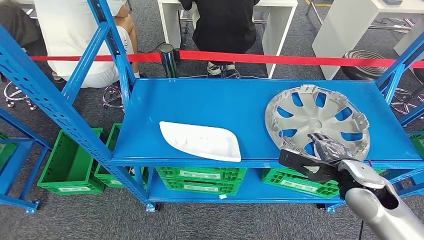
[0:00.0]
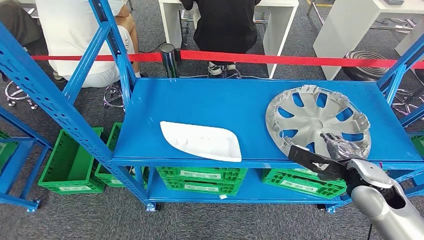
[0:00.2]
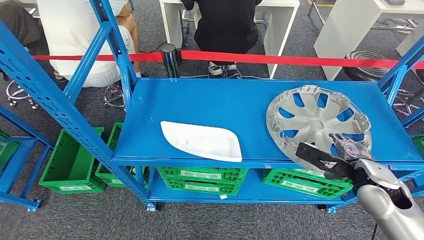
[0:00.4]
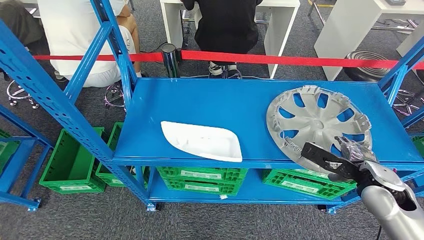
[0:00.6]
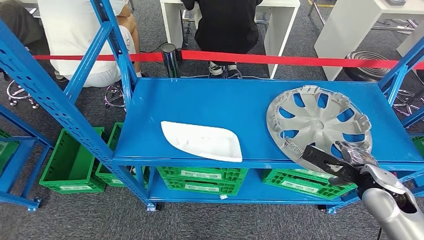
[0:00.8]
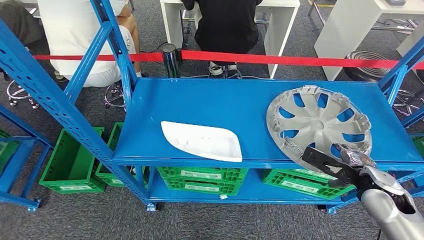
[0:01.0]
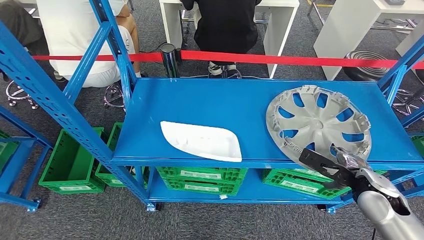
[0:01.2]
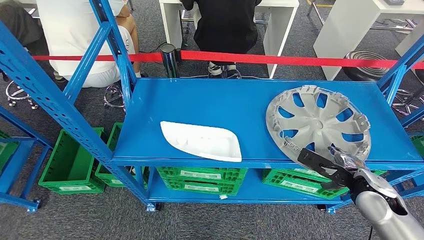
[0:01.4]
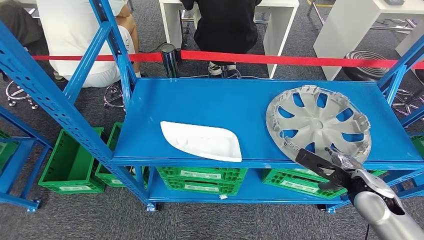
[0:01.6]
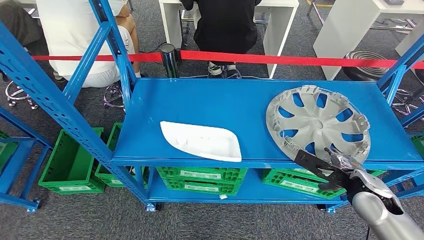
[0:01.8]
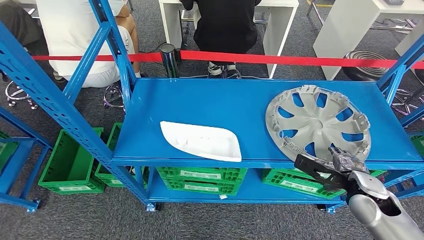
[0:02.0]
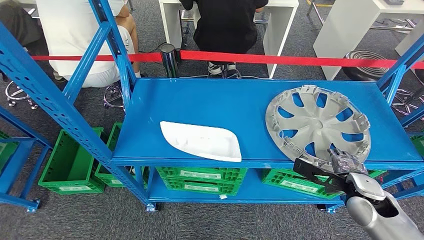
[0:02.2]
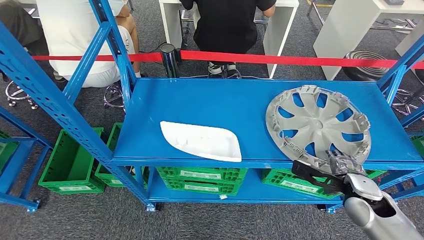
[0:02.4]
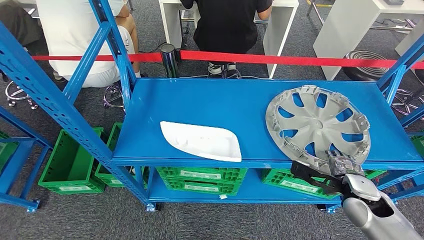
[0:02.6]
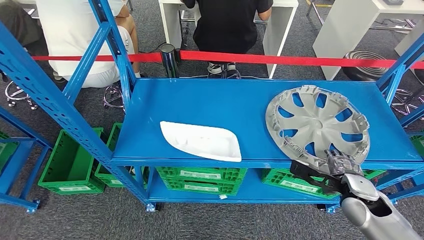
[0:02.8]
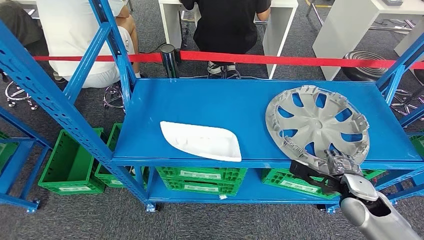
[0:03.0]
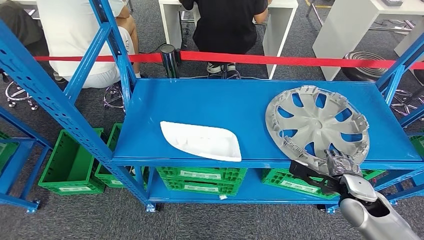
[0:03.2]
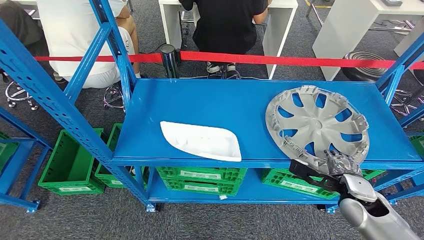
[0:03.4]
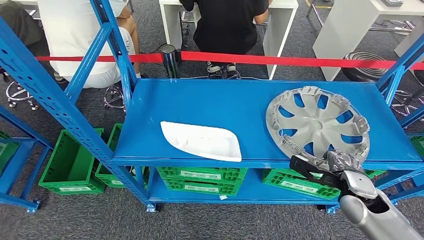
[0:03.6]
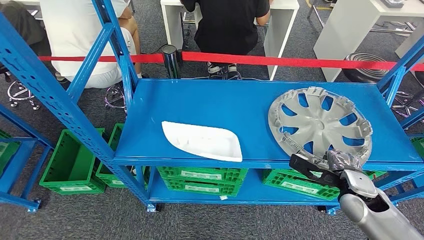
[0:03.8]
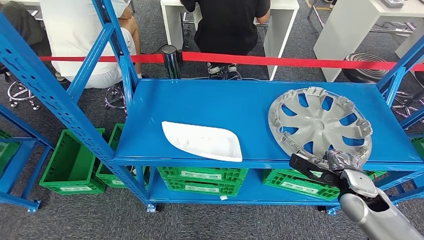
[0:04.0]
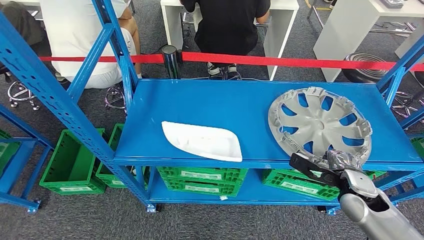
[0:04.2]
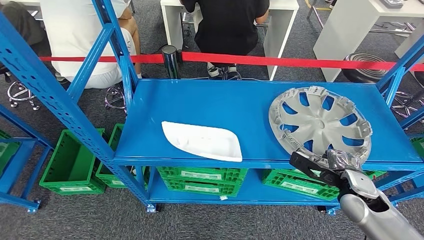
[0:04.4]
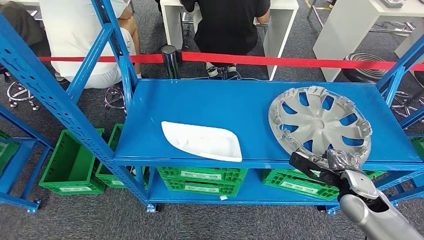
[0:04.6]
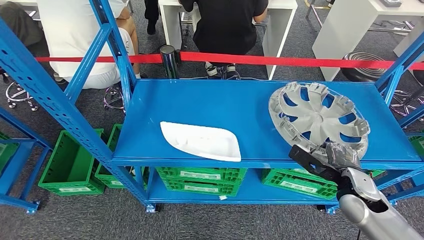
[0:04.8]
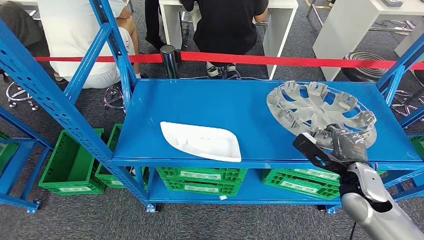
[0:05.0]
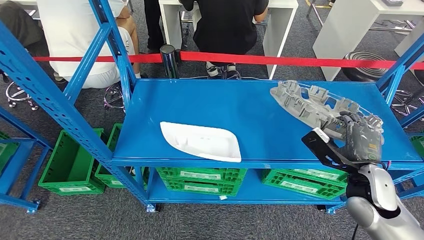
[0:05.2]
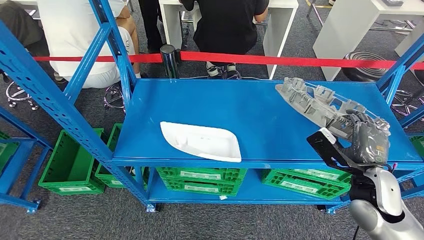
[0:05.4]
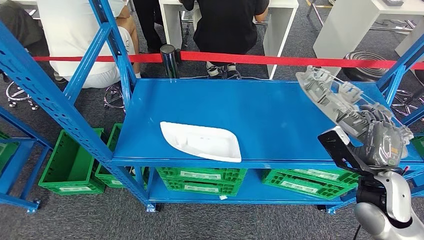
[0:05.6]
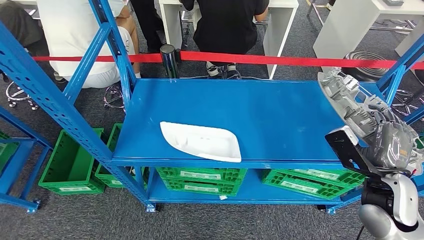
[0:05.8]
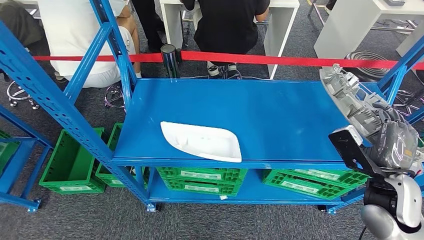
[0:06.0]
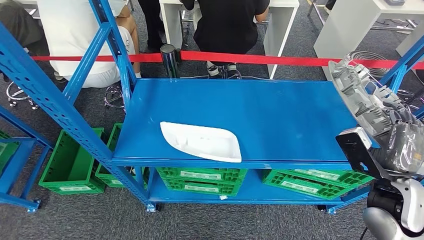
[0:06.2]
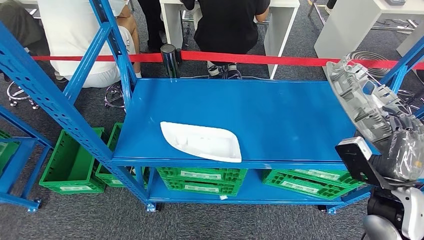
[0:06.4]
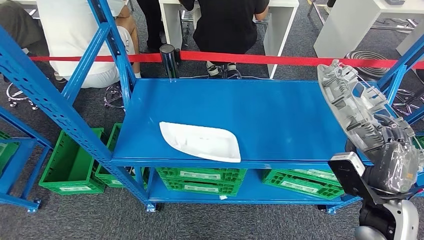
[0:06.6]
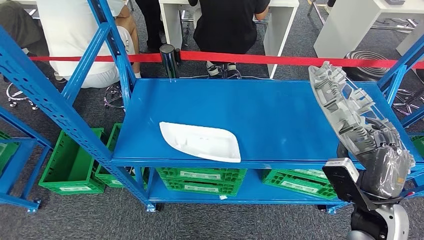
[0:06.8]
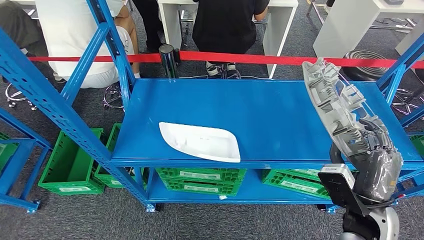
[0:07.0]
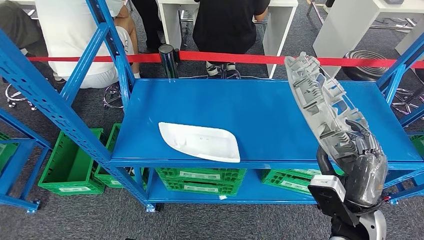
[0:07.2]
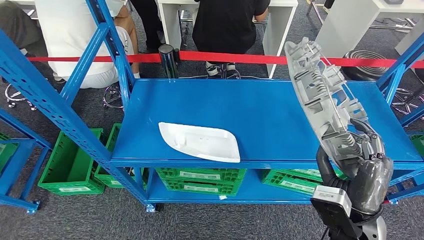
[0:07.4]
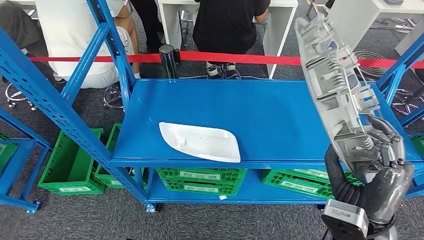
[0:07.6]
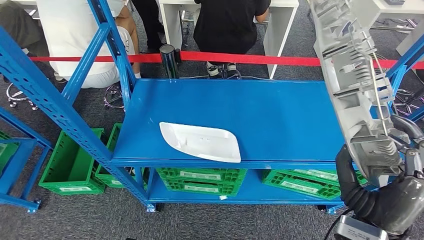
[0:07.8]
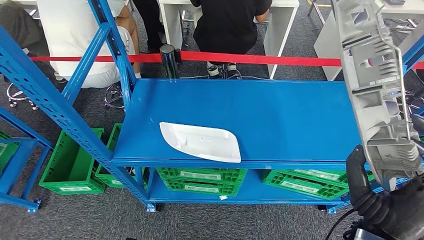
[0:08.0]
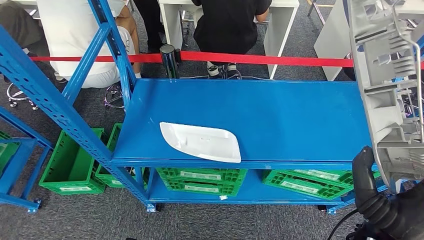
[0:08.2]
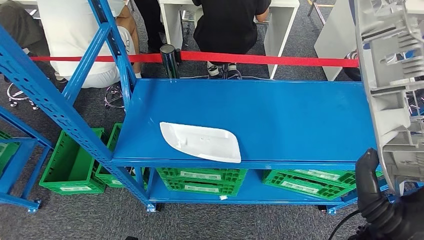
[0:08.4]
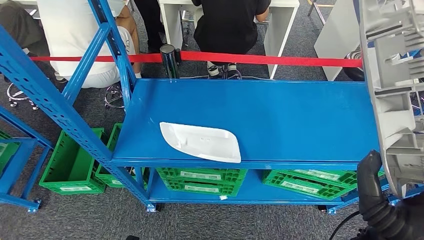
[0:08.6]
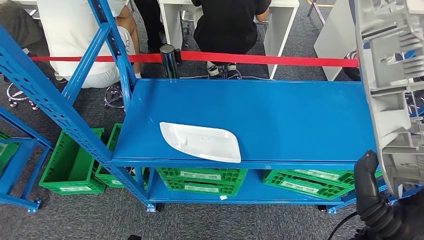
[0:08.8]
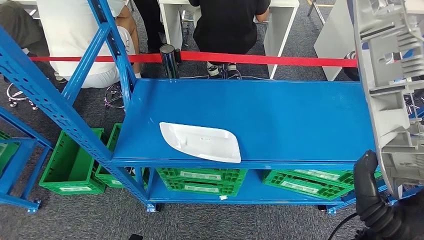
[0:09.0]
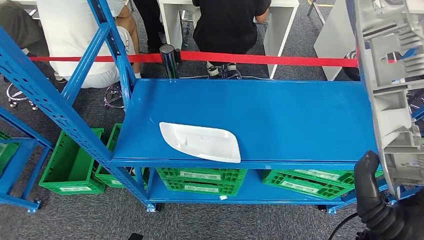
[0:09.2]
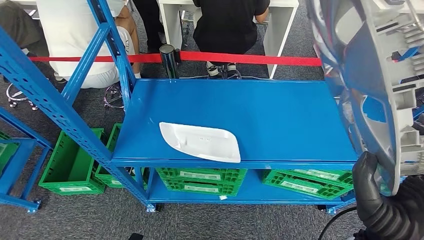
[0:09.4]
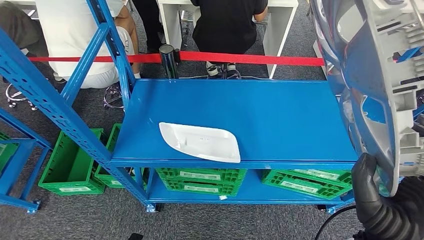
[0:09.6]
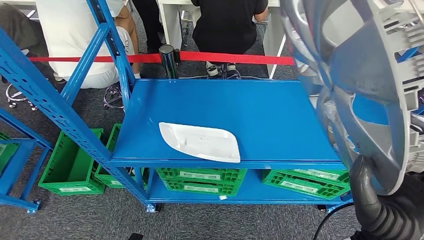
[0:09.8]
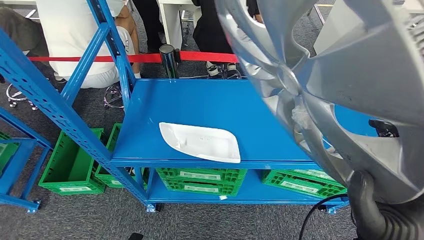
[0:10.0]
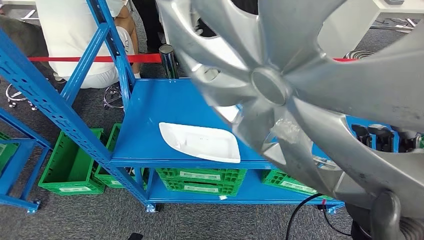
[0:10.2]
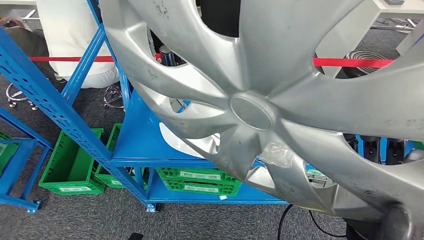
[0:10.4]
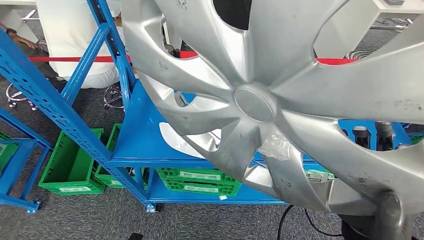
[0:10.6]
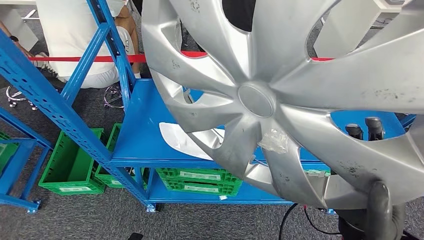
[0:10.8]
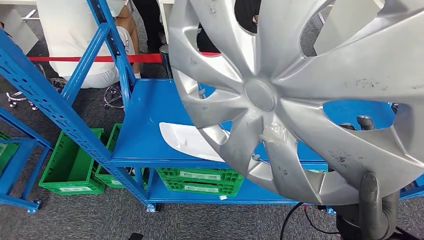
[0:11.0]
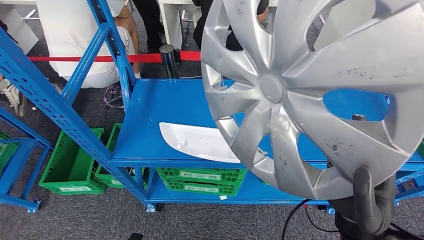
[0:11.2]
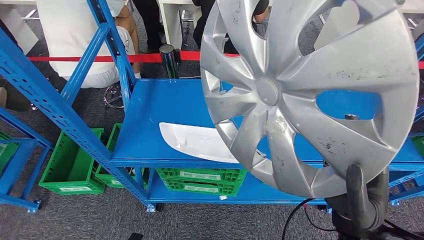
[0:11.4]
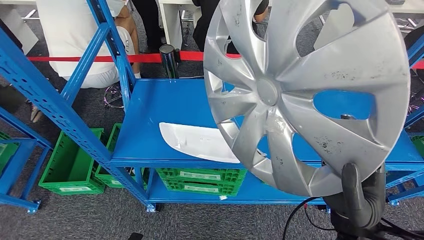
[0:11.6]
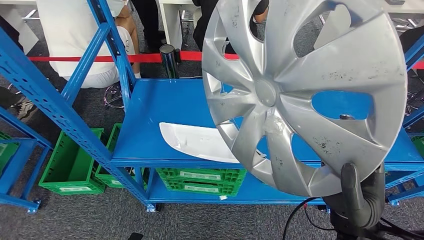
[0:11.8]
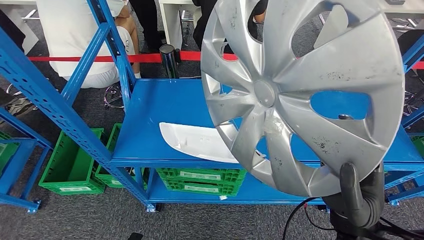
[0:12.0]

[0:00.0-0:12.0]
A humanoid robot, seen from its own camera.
Step, 0:00.0 to 0:07.0: Pick up the small parts from the shelf.
0:00.0 to 0:01.6: The right hand shifts by approximately 5 cm.
0:01.6 to 0:04.4: The hands stay close to where they were, moving slightly.

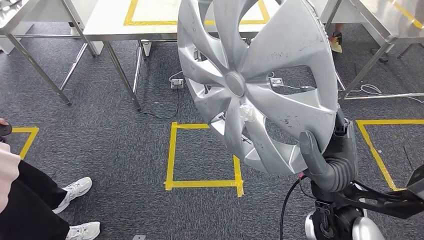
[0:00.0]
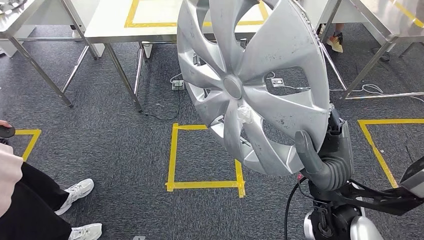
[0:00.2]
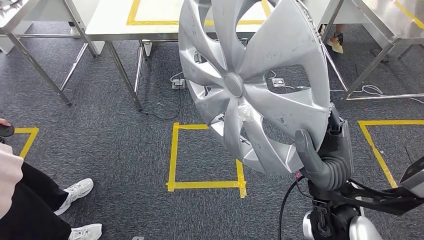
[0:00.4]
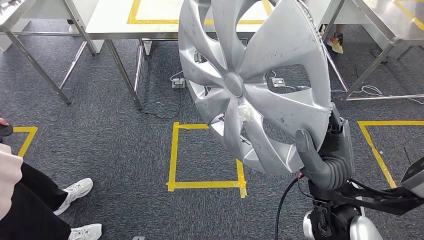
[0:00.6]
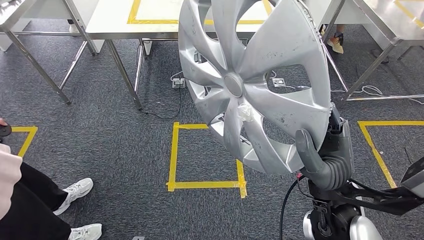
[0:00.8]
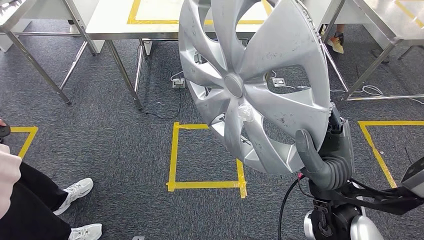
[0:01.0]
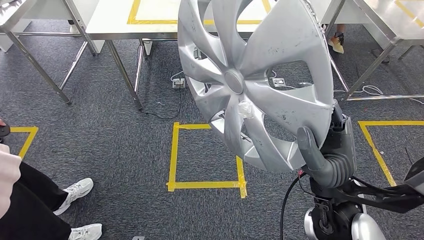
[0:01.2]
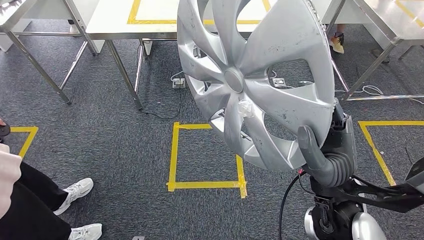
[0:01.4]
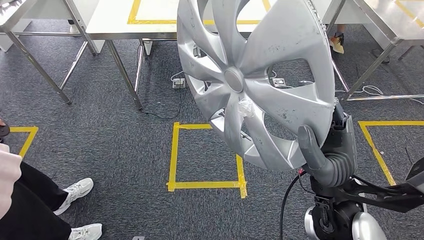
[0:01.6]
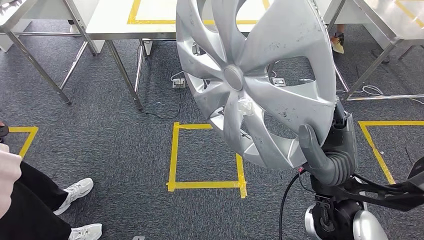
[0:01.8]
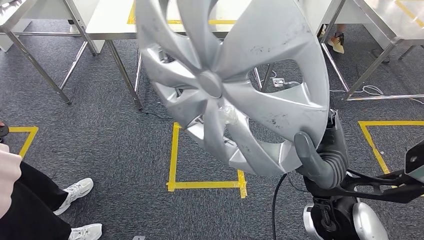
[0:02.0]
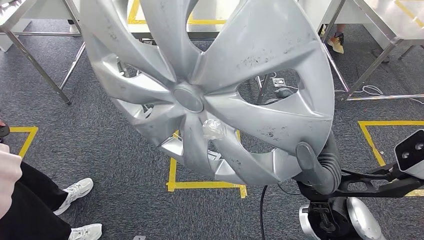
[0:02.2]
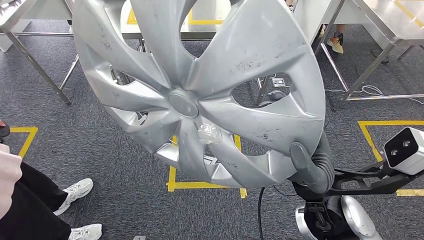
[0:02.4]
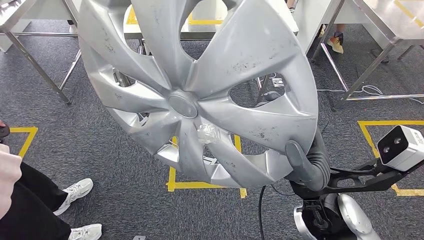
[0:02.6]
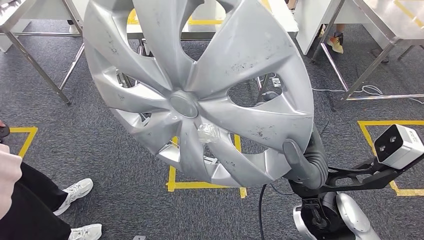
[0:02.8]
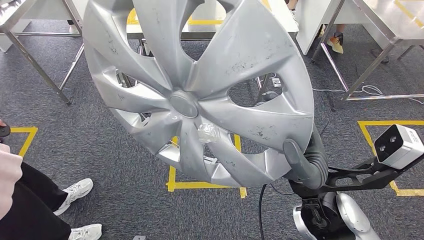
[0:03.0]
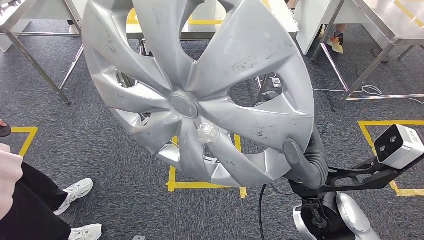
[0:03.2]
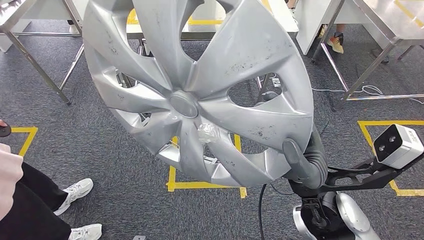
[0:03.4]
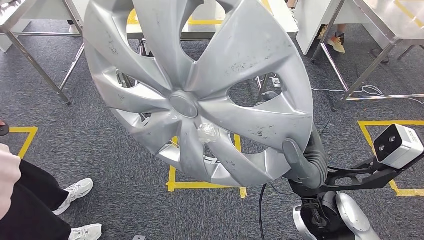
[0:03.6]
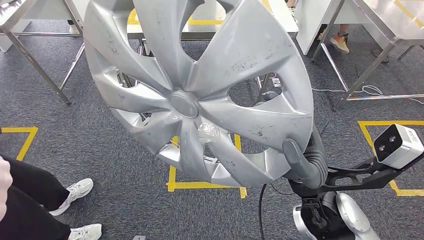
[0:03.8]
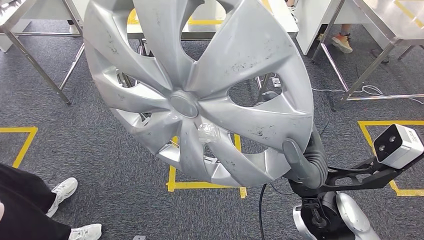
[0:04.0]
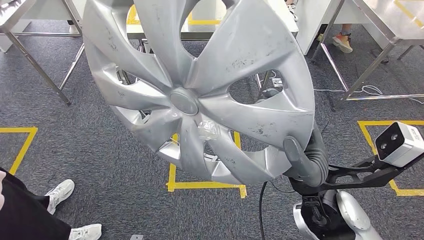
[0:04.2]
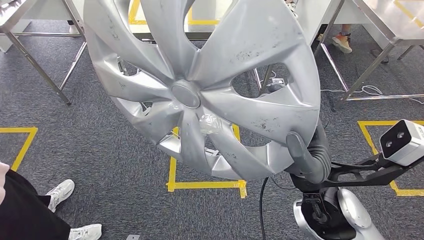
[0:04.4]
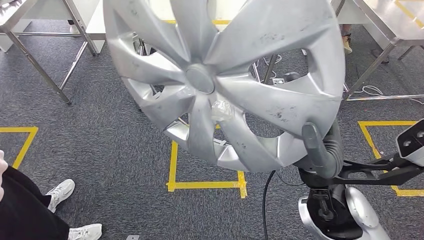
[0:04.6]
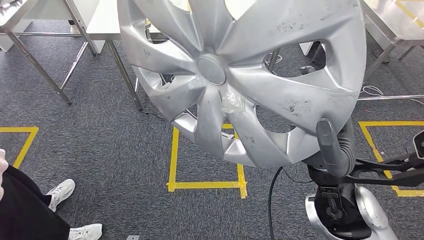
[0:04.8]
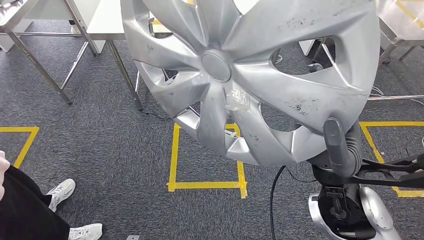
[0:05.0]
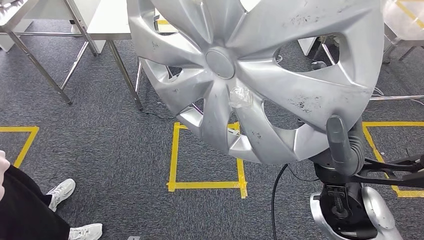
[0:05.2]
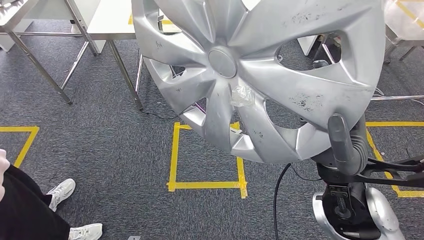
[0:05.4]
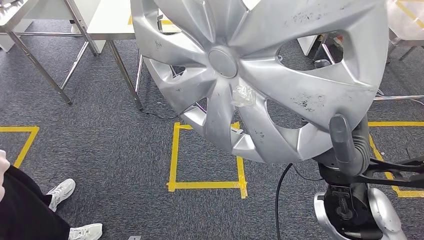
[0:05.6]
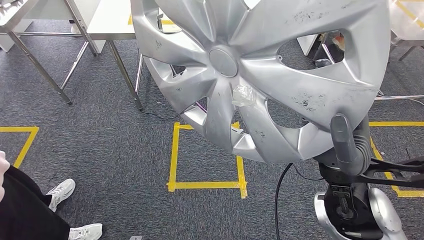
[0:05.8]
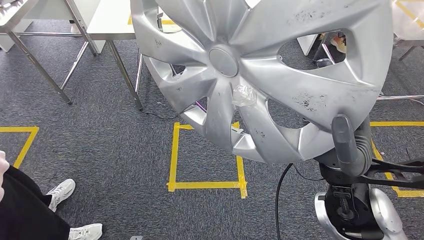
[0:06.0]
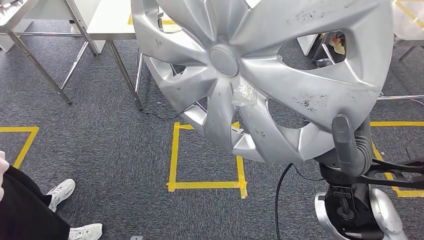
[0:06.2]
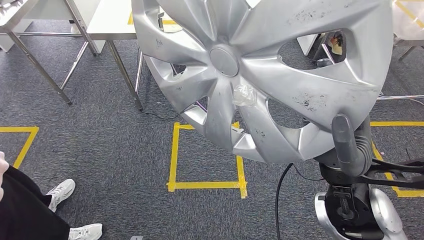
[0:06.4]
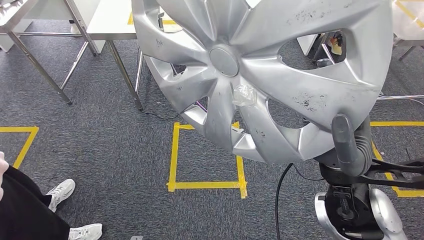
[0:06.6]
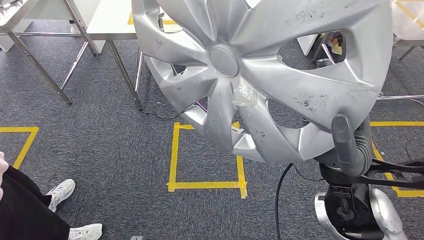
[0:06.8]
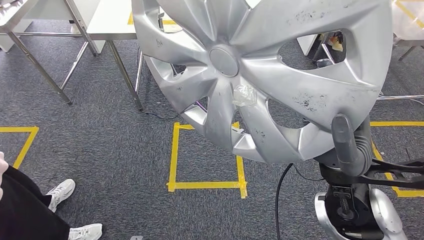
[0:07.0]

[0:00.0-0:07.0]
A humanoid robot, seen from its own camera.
0:00.0 to 0:01.4: Both hands stay put.
0:02.8 to 0:04.2: Neither hand changes place.
0:05.6 to 0:07.0: Both hands stay put.
